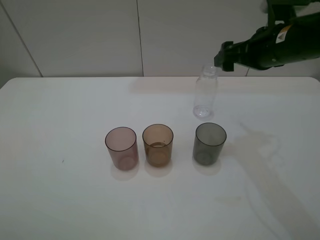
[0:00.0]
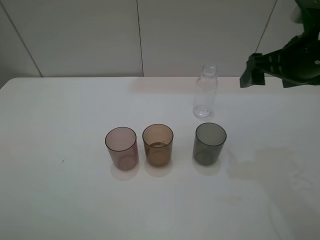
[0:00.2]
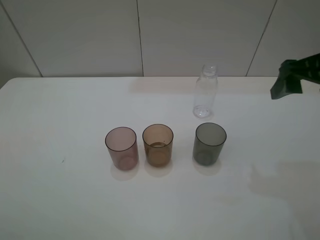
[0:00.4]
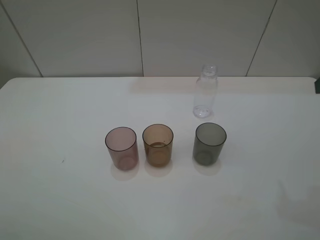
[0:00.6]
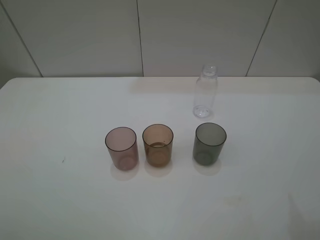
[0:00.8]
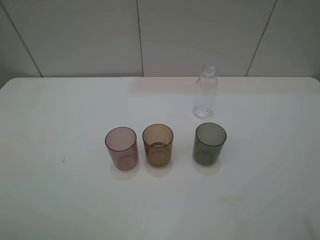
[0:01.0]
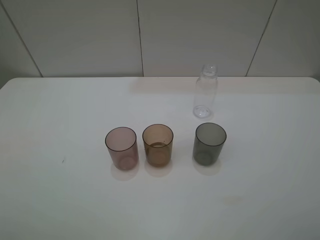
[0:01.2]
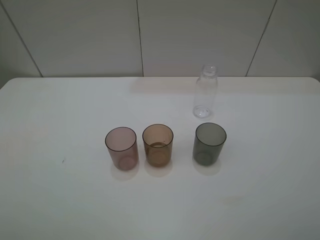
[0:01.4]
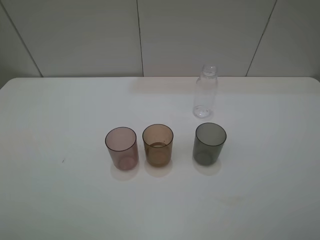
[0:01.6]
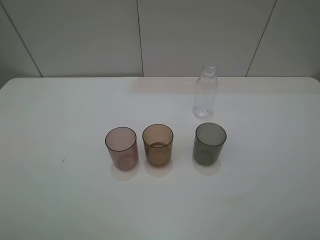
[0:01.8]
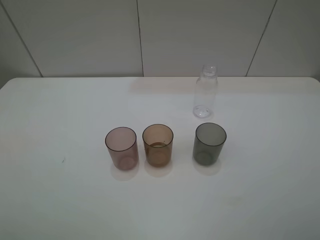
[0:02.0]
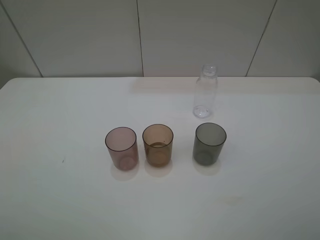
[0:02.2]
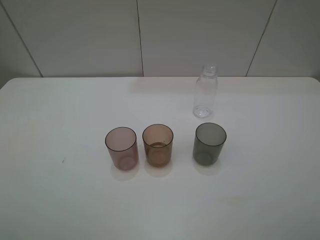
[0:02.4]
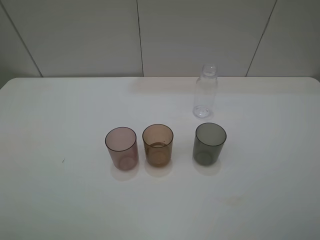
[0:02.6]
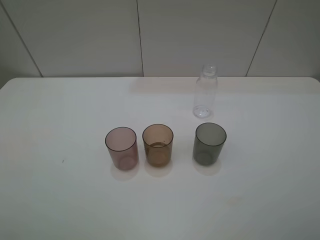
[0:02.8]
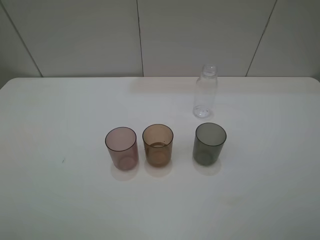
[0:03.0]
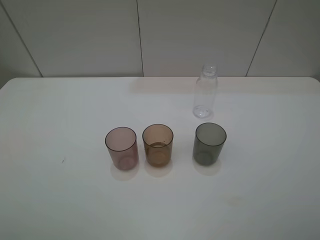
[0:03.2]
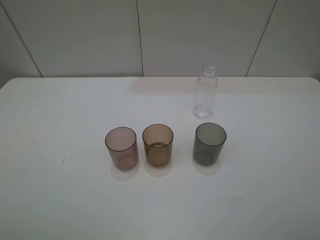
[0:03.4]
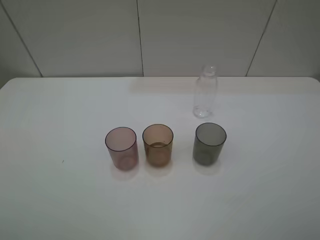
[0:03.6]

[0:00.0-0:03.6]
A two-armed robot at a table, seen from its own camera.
Task of the whole recording: pick up the bottle filled with water and pour water into the middle cup of the three cups.
0:00.0 to 0:01.8: The right gripper travels backward by some 30 cm.
0:01.8 to 0:03.6: Both grippers stay put.

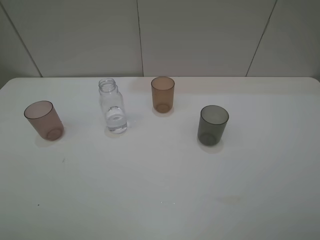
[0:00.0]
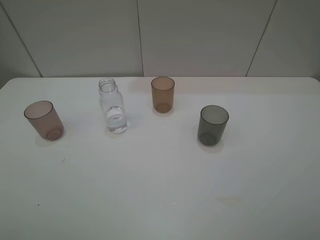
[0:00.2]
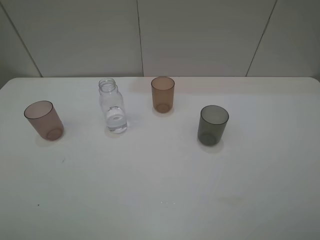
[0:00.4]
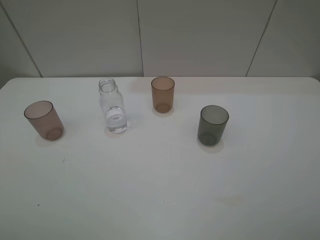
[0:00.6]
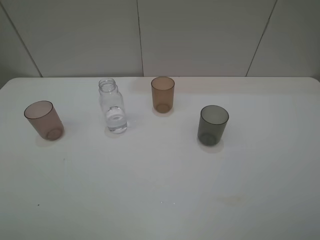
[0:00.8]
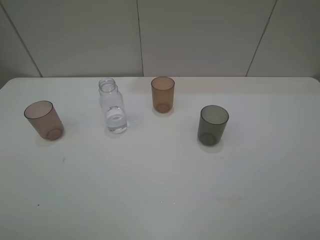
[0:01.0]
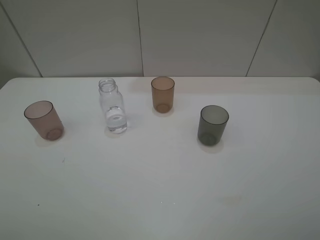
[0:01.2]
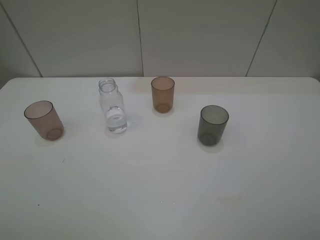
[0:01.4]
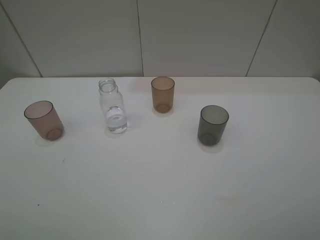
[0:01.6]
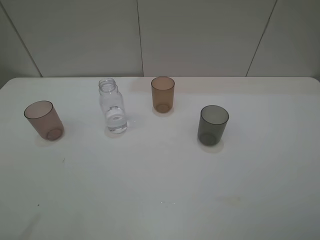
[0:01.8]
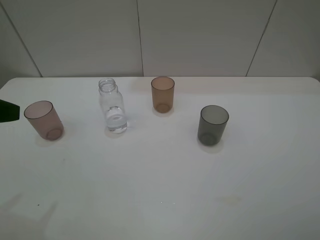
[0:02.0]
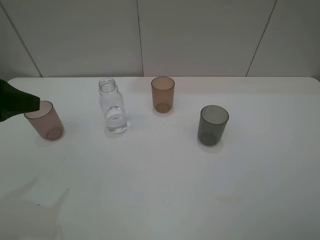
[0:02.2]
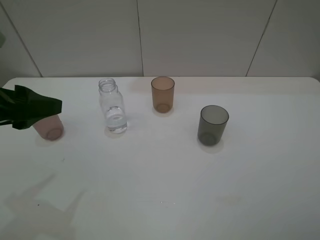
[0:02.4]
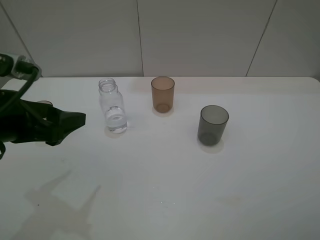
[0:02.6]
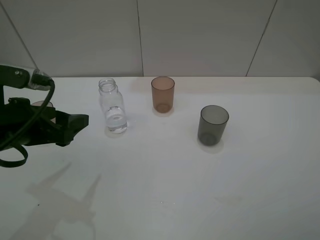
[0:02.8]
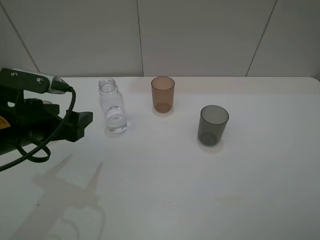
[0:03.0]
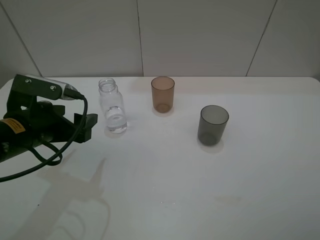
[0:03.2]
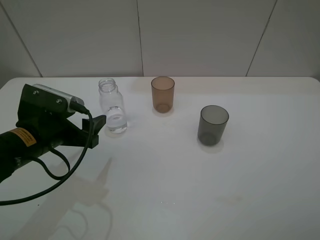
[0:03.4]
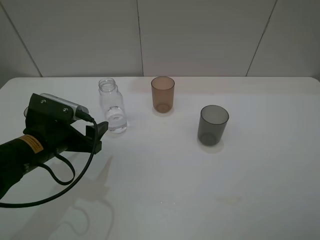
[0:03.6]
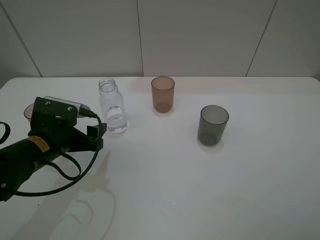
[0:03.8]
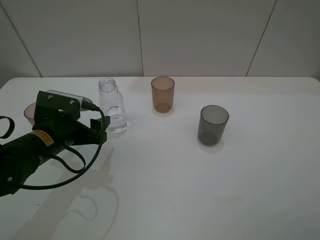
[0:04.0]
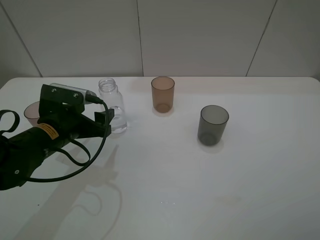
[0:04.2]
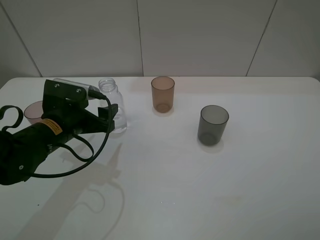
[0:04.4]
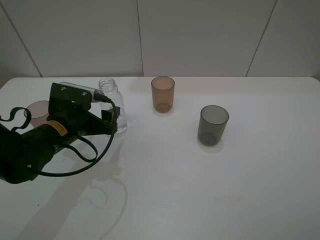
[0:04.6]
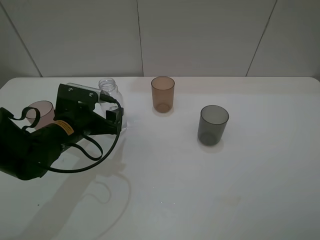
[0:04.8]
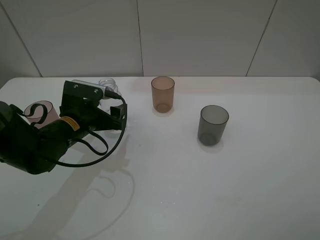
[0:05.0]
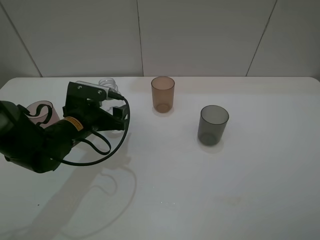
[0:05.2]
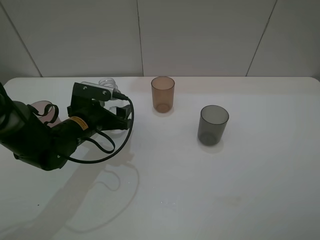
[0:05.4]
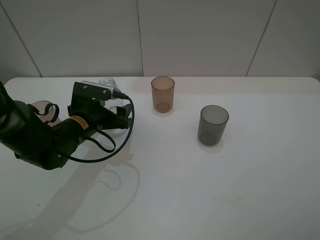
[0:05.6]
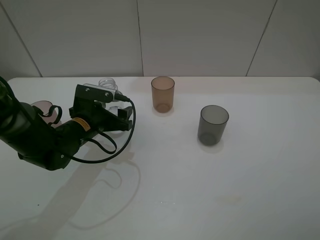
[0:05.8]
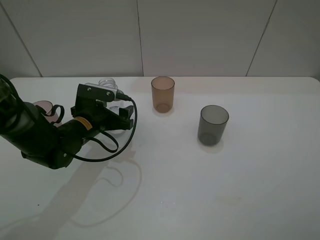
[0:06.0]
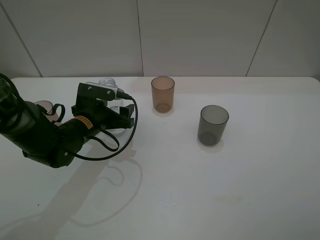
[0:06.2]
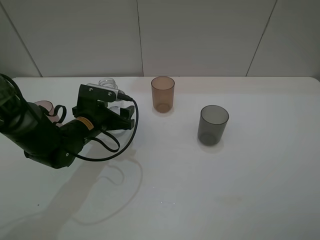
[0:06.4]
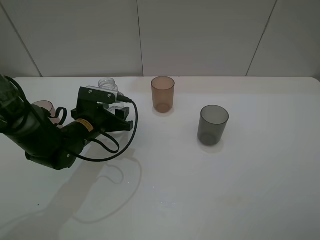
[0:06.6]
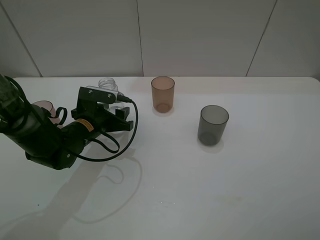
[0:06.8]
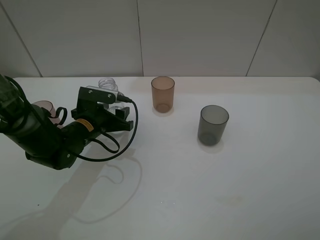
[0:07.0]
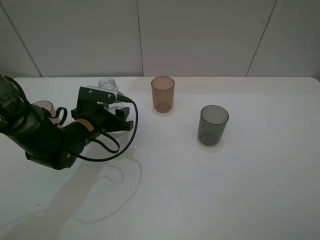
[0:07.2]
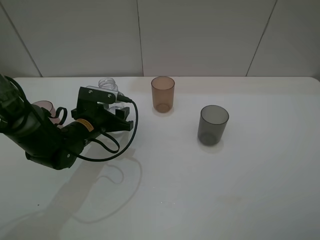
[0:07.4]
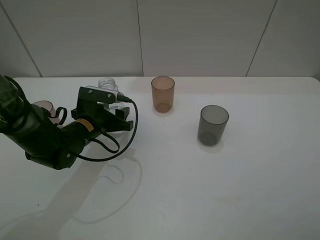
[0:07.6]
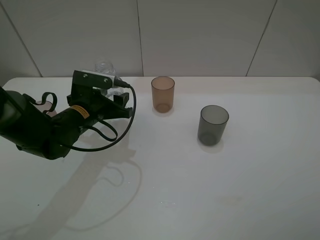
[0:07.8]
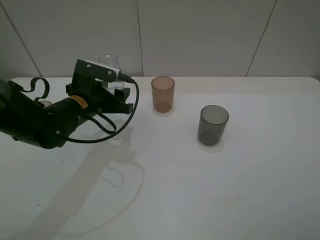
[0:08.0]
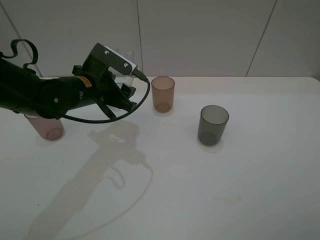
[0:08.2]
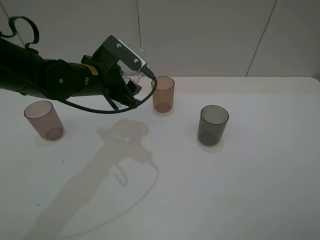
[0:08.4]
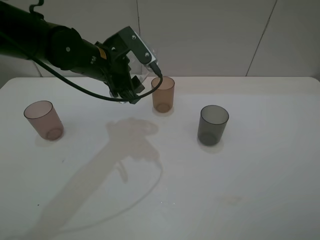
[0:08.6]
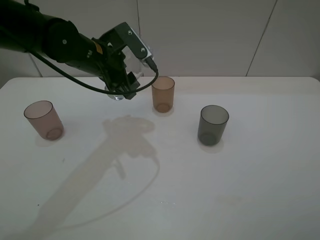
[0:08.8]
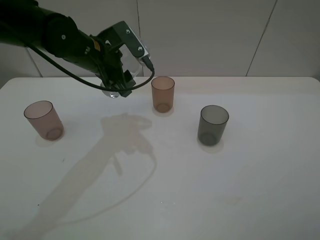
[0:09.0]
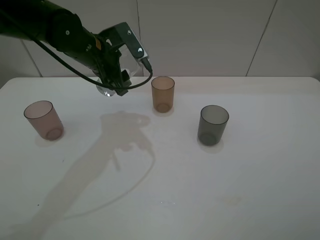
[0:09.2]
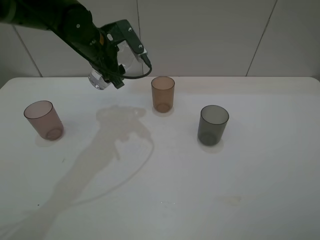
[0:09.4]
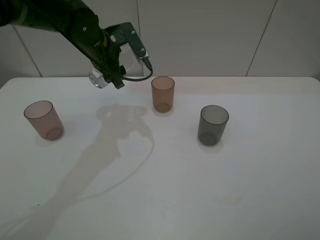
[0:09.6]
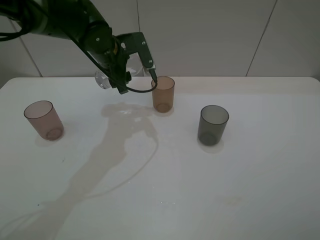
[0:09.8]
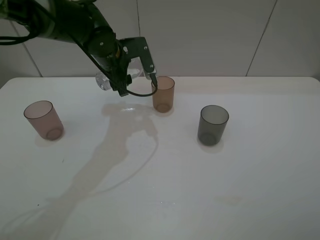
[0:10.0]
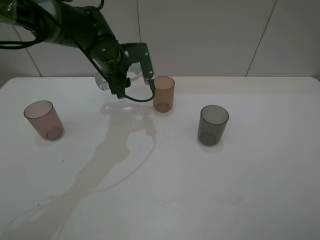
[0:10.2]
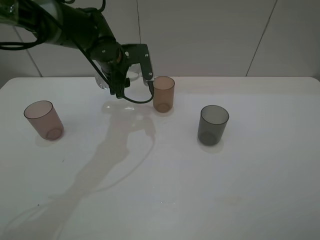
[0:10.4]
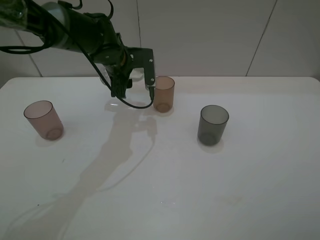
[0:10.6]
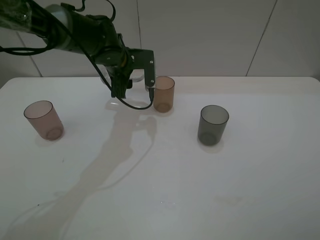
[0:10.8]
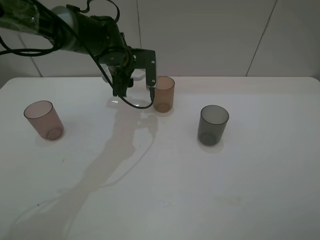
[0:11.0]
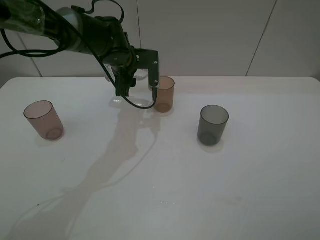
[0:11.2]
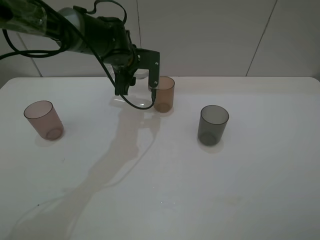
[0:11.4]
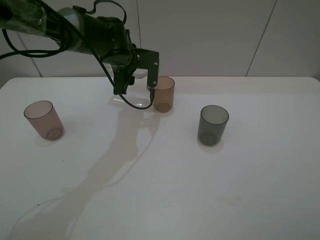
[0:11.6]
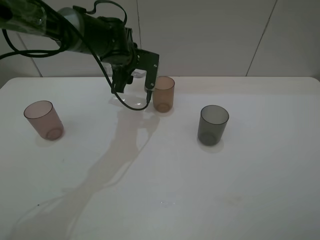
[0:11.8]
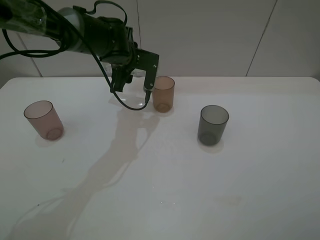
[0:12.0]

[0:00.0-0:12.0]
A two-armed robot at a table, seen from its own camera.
Task of the whole recording: pick up the bottle filled with water and pour water into the middle cup of the three cups.
Step, 0:00.0 to 0:06.8: Grasp the transparent bottle with the left gripper.
0:01.6 to 0:03.0: The left gripper heads forward, downward and to the right, covering about 20 cm.
0:03.0 to 0:04.4: The left gripper travels downward by some 5 cm.
0:04.4 to 0:06.0: The left gripper changes place by roughly 5 cm.
0:06.0 to 0:07.6: The left gripper closes.
0:07.6 to 0:09.0: The left gripper shifts roughly 15 cm upward and forward.
0:09.0 to 0:10.4: The left gripper travels forward by roughly 5 cm.

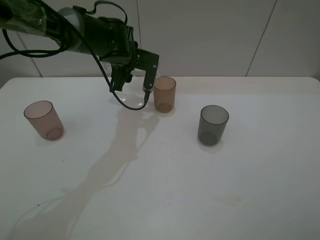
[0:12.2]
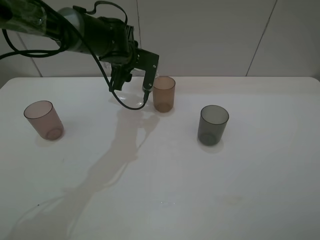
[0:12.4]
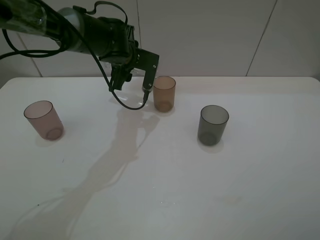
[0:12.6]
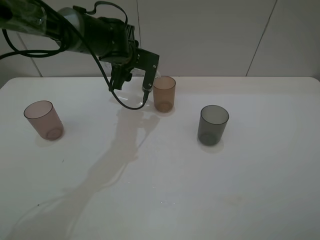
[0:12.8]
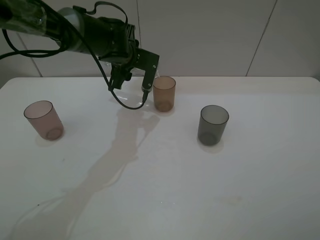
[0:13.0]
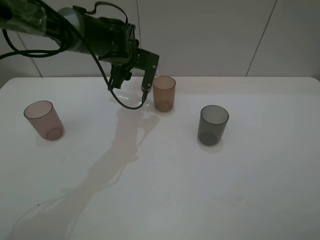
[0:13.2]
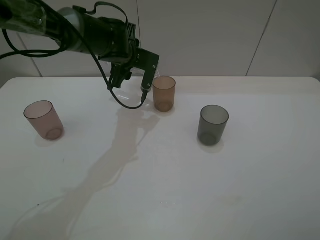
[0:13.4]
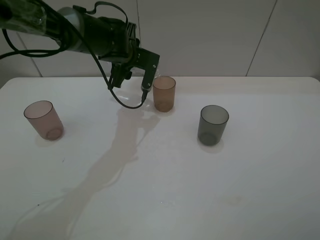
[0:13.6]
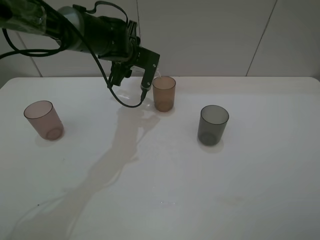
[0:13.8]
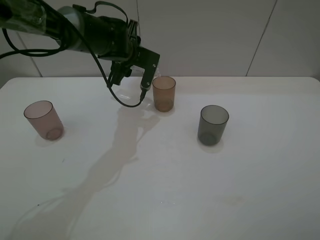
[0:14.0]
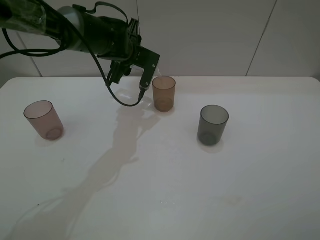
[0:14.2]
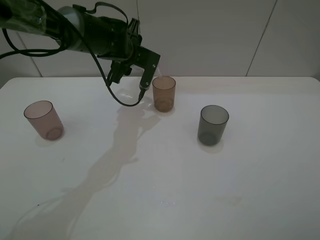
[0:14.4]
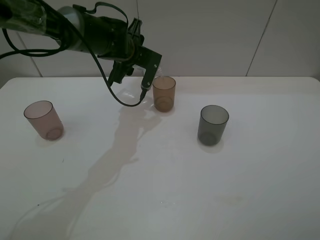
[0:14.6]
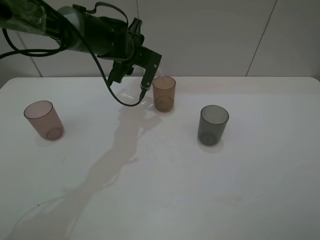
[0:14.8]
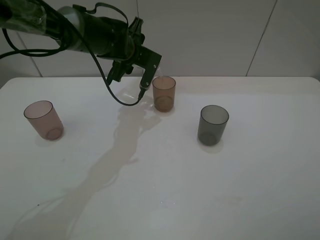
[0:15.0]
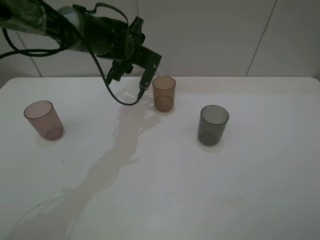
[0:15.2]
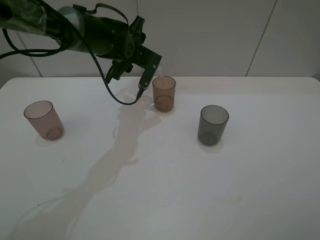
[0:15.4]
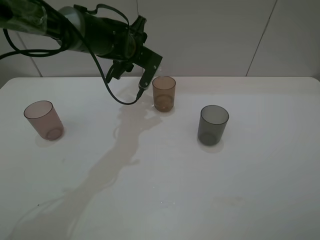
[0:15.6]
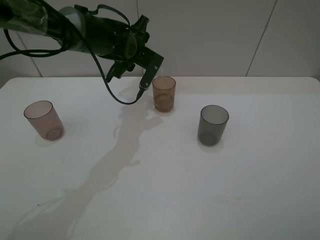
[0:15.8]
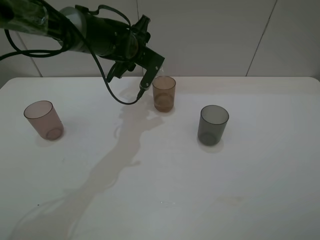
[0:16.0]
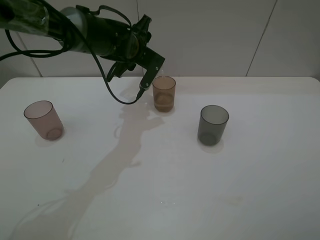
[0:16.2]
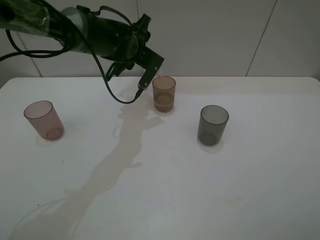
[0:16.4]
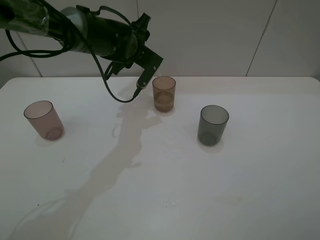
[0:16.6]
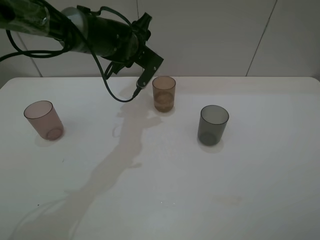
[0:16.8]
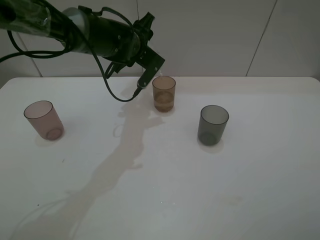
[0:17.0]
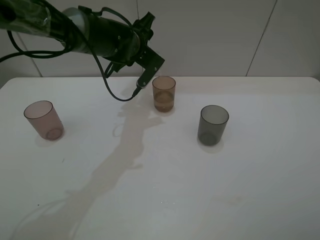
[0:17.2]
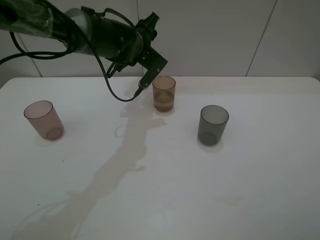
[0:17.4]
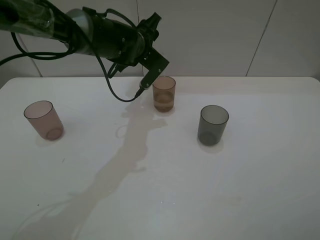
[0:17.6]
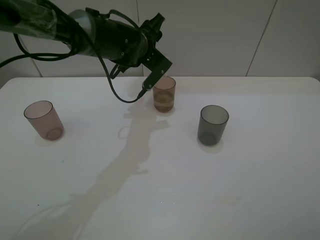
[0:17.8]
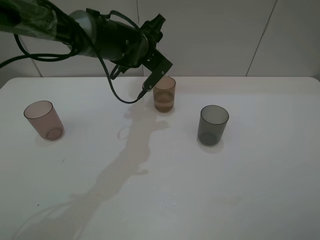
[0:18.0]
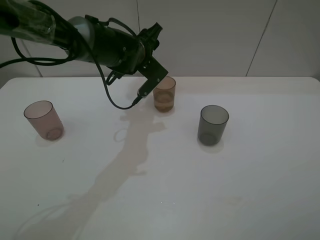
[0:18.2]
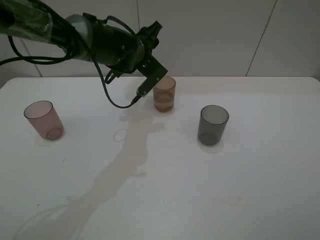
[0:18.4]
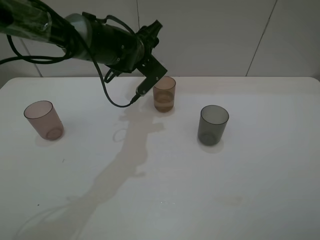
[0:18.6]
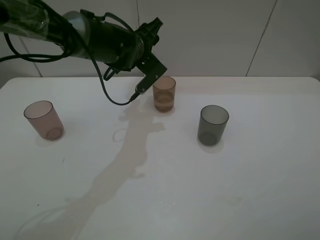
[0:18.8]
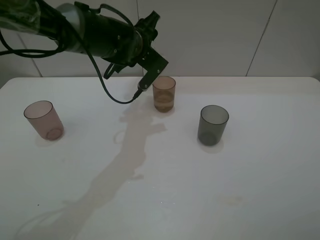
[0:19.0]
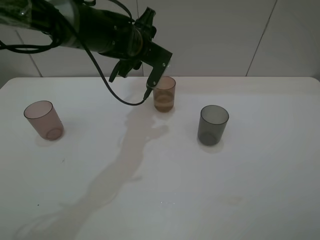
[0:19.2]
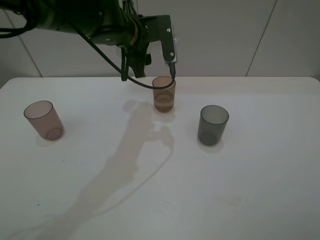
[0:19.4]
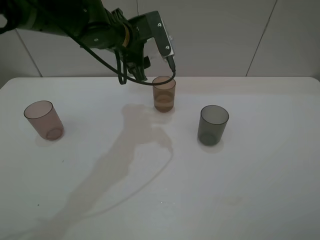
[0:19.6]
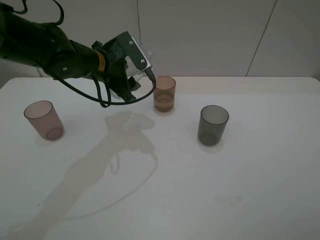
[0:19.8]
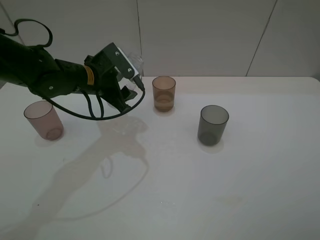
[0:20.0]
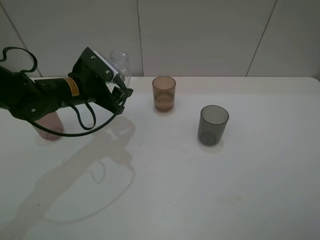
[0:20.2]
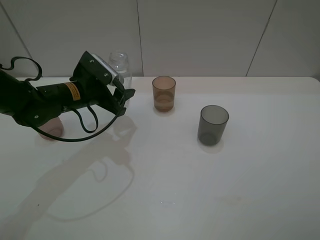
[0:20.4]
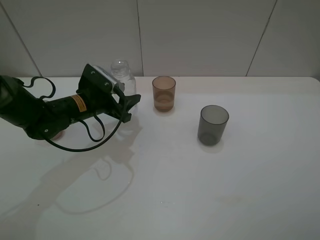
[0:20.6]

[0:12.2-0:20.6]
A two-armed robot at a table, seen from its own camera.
Task of the whole recording: pick up the bottle filled with water and pour water into the middle cup of the three cups.
0:12.2 to 0:15.0: The grippers make only small movements.
0:15.0 to 0:17.8: The grippers make only small movements.
0:19.2 to 0:20.6: The left gripper travels to the left, downward and backward by some 15 cm.
